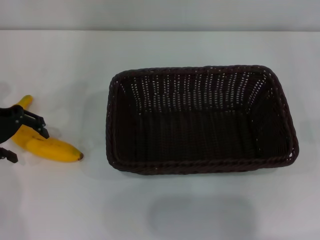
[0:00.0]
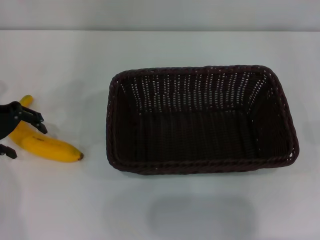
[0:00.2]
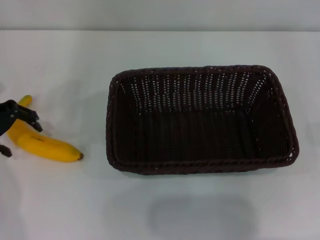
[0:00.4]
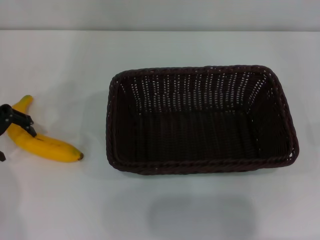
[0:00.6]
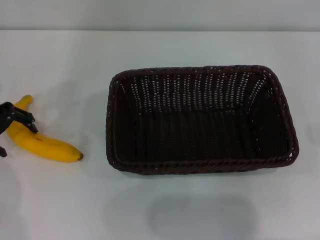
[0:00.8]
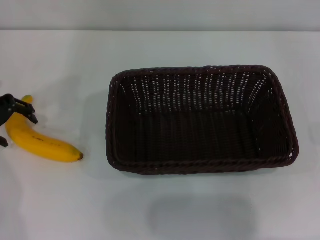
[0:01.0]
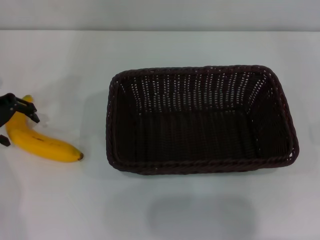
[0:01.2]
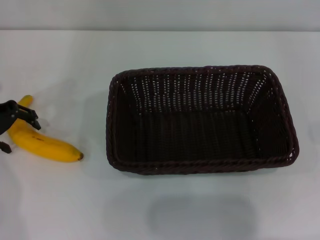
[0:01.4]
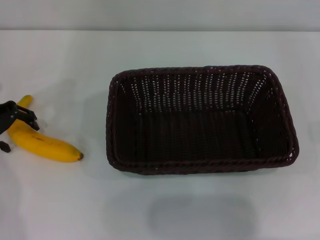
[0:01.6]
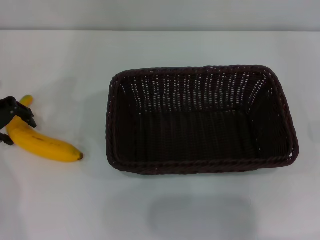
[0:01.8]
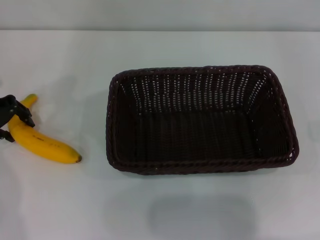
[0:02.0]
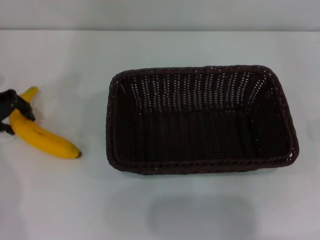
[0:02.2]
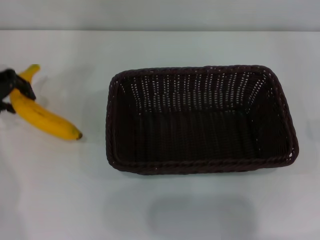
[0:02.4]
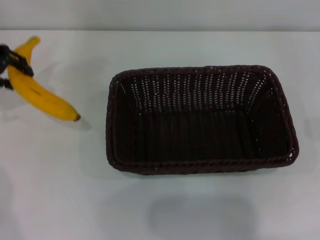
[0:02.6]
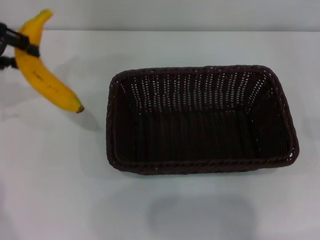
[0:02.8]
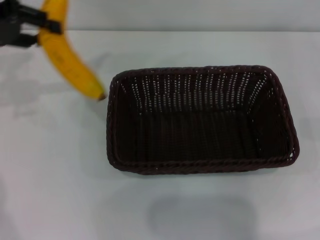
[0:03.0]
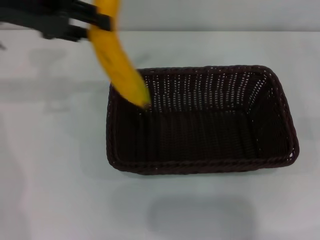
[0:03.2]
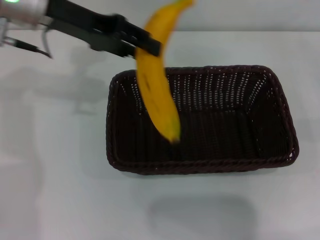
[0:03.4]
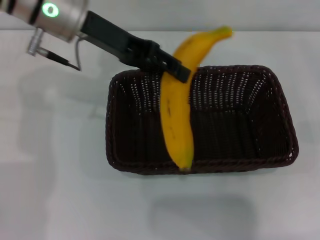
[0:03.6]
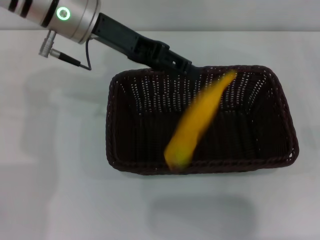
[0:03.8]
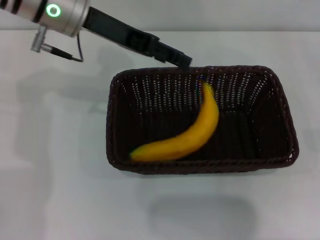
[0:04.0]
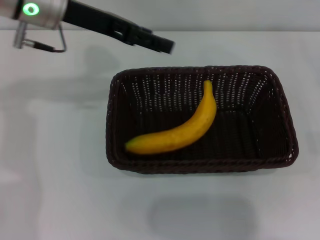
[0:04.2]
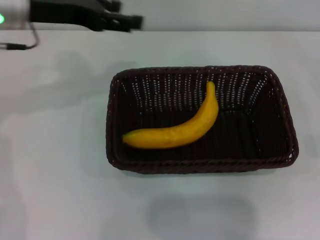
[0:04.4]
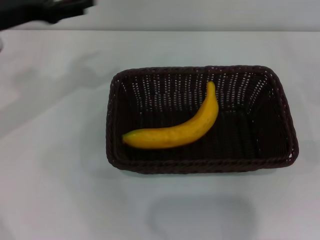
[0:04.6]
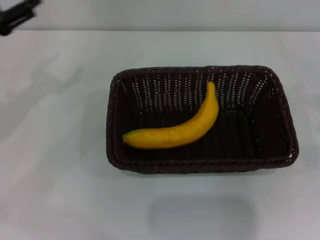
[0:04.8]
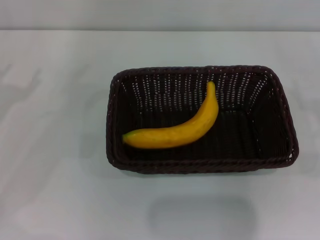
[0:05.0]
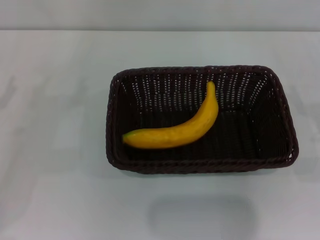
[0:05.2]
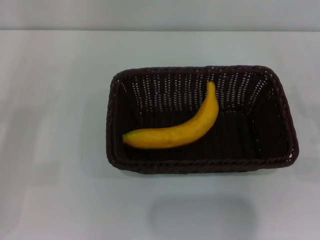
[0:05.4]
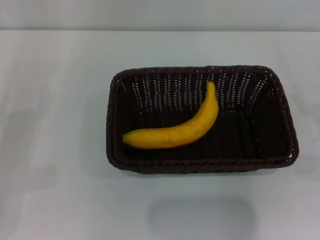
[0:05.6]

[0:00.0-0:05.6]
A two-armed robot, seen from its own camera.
Step, 0:00.0 to 0:02.4: Pick up the banana with the left gripper.
Step, 0:02.6 to 0:04.0: Place the banana into the dark basket with the left gripper.
0:00.0 to 0:01.4: There are only small adjustments of the grippers.
0:01.4 to 0:02.8: The left gripper moves upward, approximately 10 cm, and closes its fingers.
0:02.8 to 0:04.2: The left gripper shifts some 15 cm to the right, and opens up.
0:04.2 to 0:05.6: The left gripper travels to the left, downward and backward by roughly 30 cm. The right gripper heads to the left, covering about 5 cm.

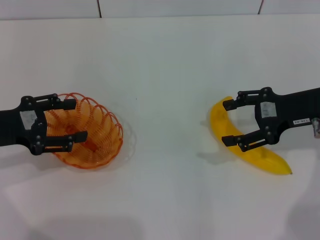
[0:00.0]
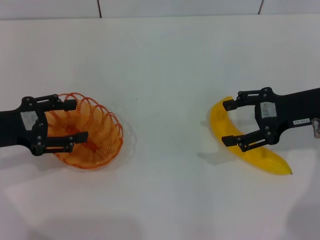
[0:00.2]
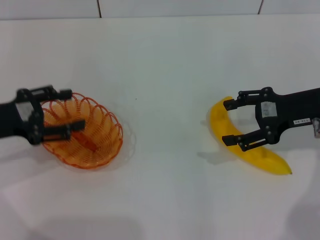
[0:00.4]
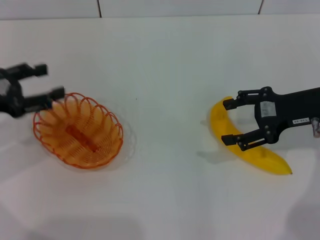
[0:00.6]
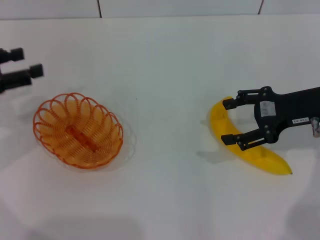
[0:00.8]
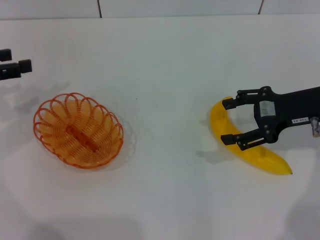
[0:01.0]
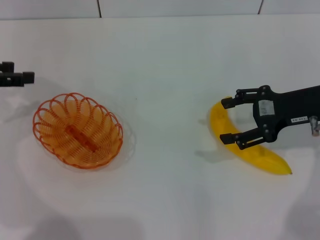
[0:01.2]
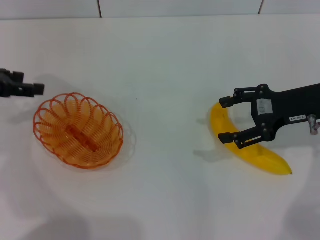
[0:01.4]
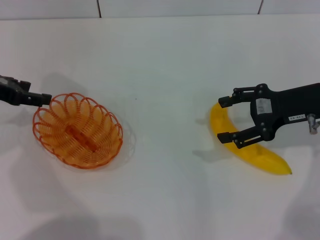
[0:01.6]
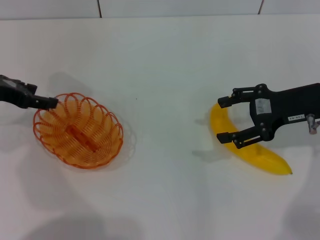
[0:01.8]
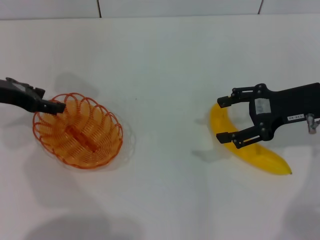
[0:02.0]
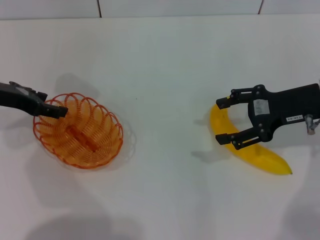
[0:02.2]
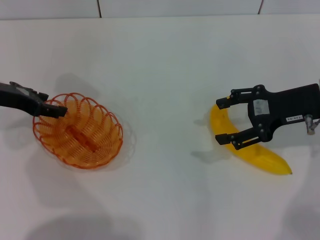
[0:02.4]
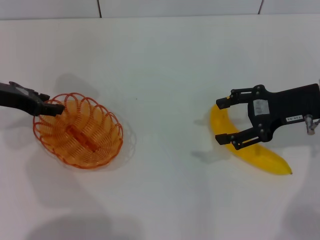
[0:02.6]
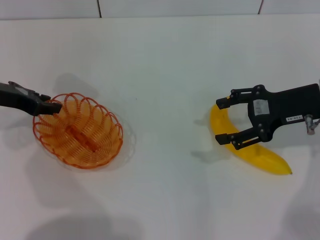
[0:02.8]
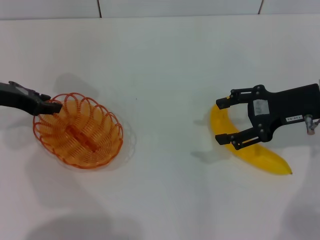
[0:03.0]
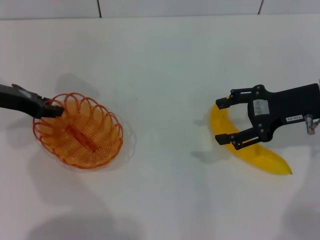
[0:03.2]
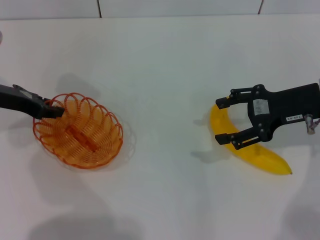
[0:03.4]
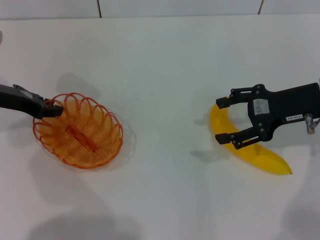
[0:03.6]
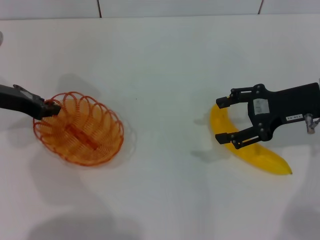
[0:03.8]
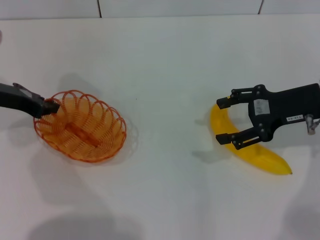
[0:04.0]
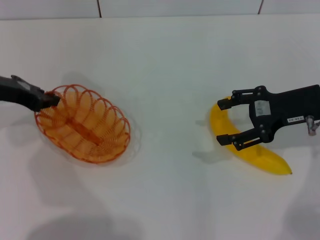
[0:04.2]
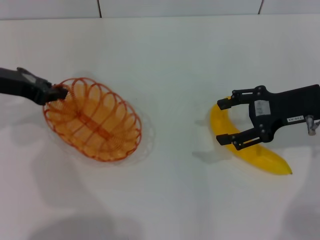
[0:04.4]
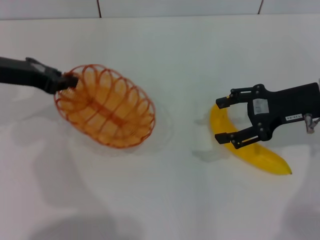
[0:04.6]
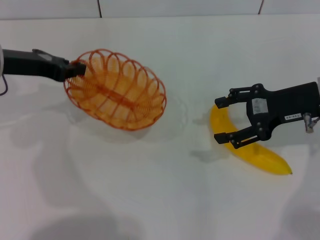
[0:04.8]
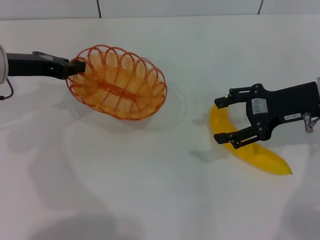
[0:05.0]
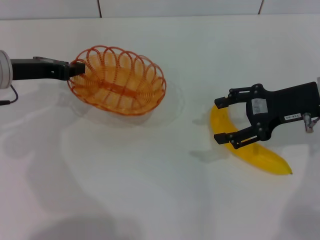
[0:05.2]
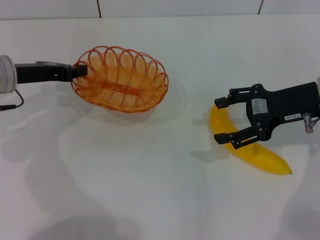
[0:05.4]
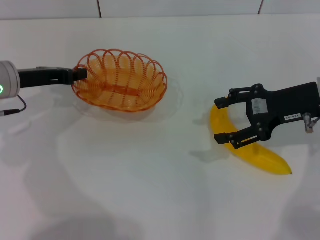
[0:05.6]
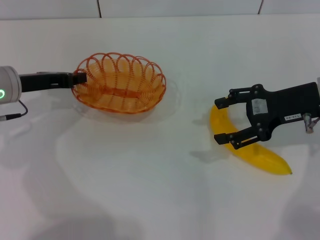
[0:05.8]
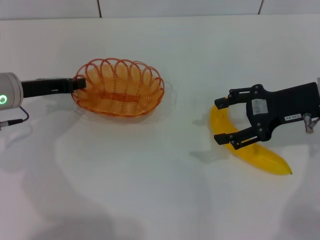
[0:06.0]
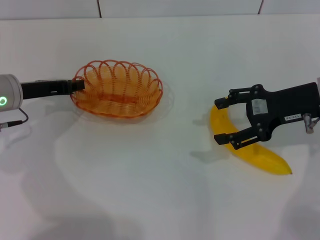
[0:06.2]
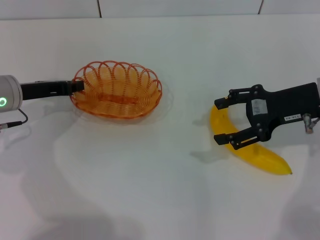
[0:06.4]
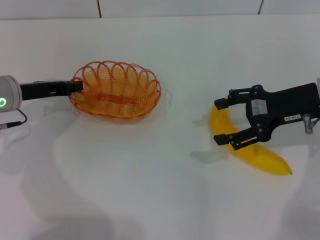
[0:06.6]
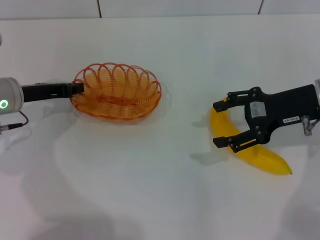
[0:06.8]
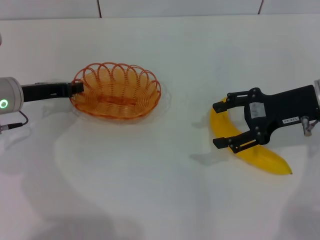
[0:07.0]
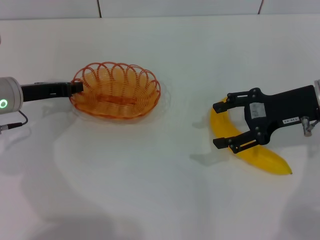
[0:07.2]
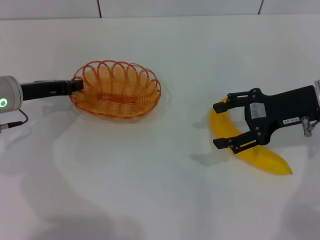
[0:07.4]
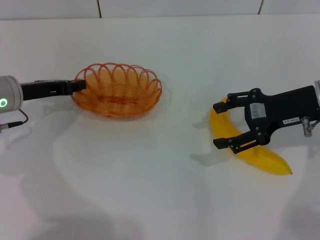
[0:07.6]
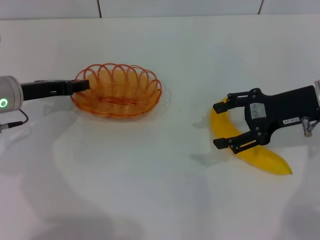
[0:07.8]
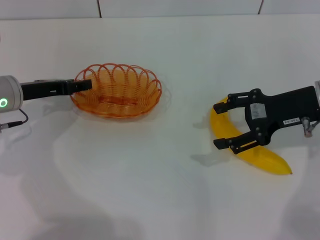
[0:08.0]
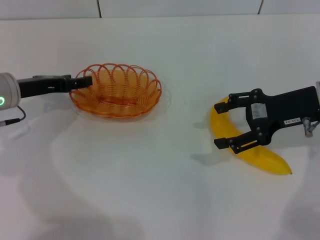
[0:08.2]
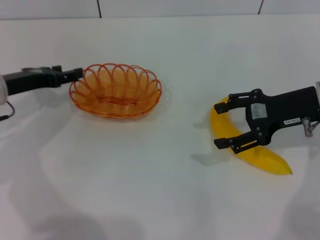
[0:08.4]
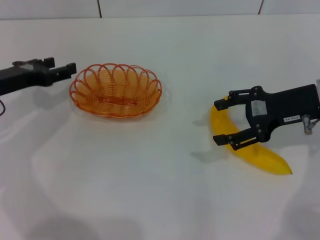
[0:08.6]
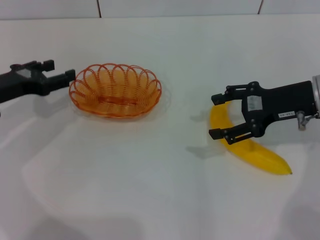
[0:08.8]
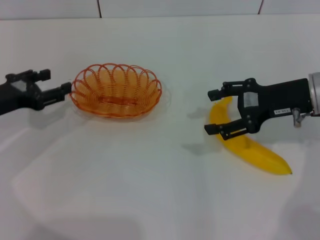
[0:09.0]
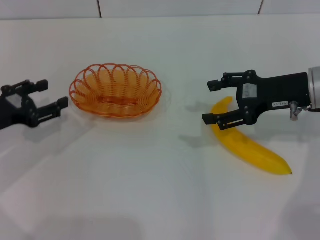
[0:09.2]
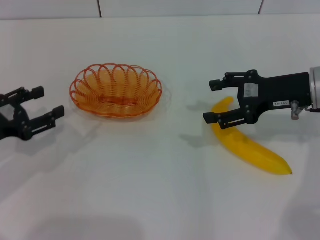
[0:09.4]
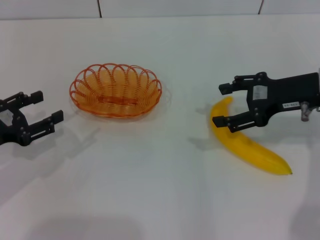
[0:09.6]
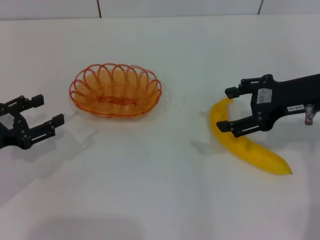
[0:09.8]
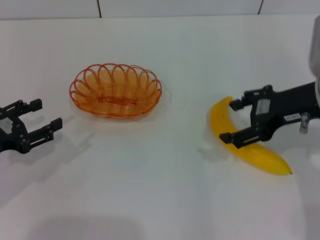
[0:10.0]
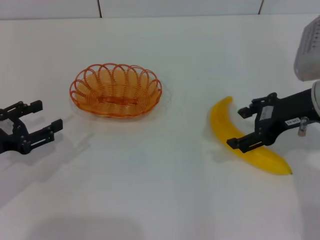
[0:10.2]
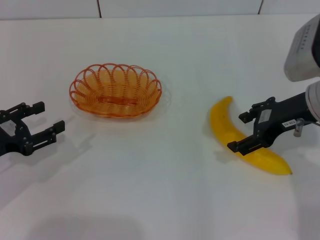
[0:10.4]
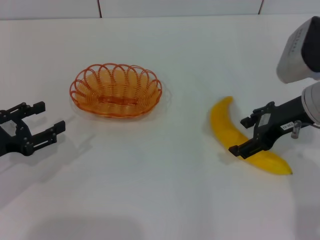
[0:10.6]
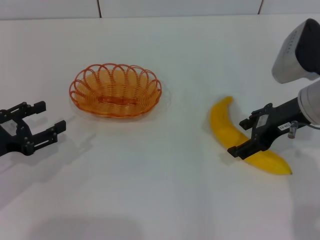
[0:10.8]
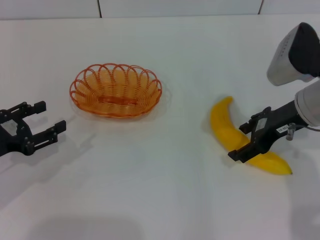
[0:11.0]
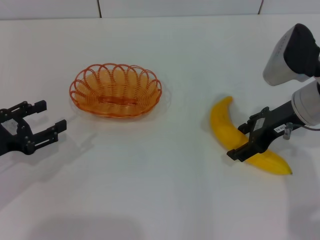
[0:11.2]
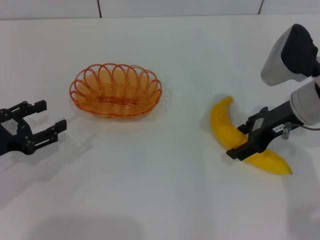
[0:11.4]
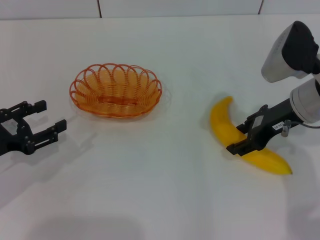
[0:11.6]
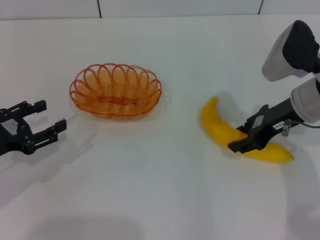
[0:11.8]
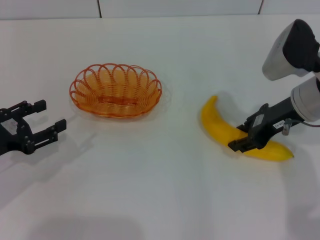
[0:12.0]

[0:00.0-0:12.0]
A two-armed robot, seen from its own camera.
Step, 0:00.0 to 0:04.4: Pick up the basket with the left gripper.
Step, 0:04.8 to 0:08.4: Place the basket in the center of view with the left gripper.
0:00.0 to 0:01.6: The left gripper goes about 10 cm forward.
0:01.6 to 0:03.0: The left gripper closes up.
0:03.0 to 0:04.4: The left gripper closes its fingers.
0:04.4 to 0:06.0: The left gripper shifts about 5 cm downward.
0:06.0 to 0:07.6: Both grippers stay about where they are.
0:07.6 to 0:09.0: The left gripper changes place by about 5 cm, and opens up.
0:09.0 to 0:10.4: The left gripper moves backward, about 5 cm.
0:10.4 to 0:12.0: The right gripper closes its fingers.

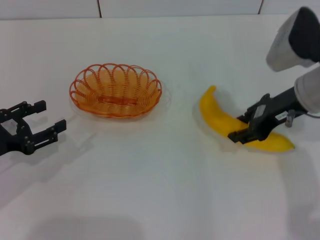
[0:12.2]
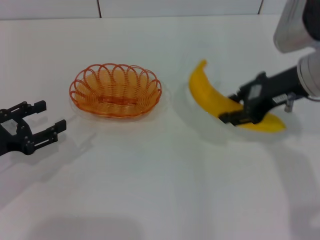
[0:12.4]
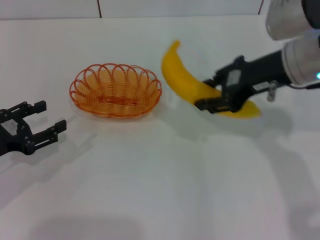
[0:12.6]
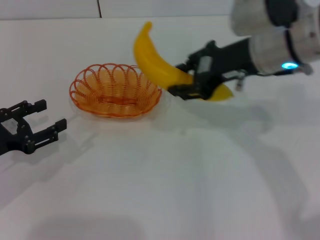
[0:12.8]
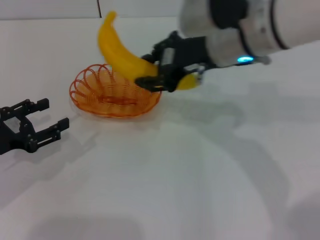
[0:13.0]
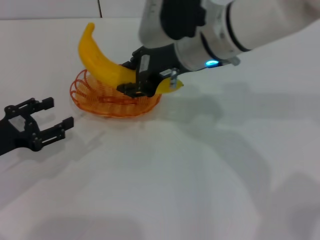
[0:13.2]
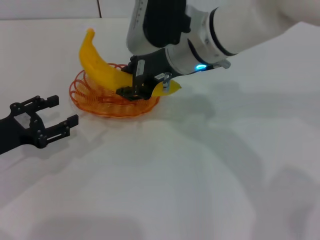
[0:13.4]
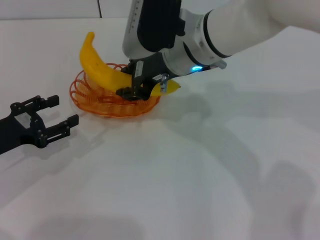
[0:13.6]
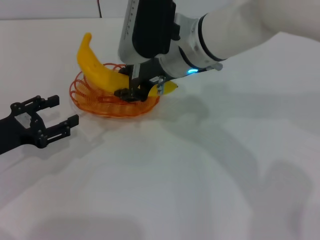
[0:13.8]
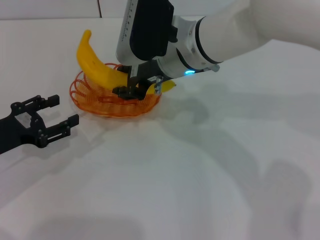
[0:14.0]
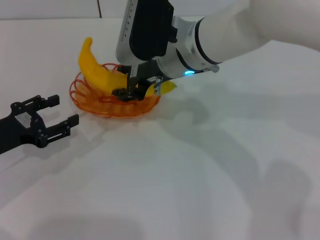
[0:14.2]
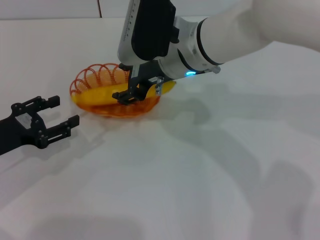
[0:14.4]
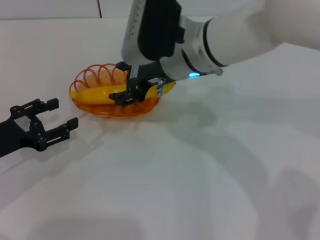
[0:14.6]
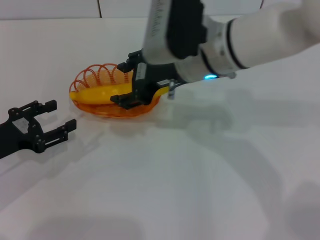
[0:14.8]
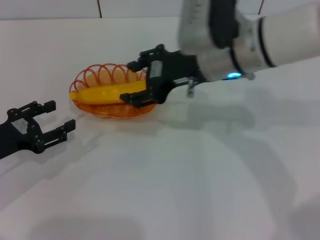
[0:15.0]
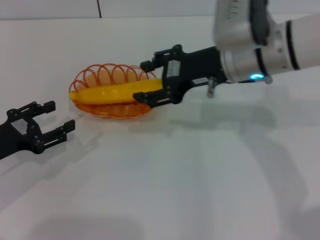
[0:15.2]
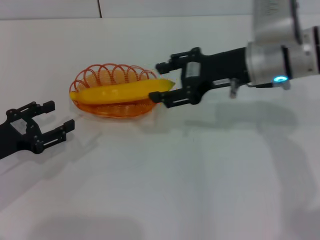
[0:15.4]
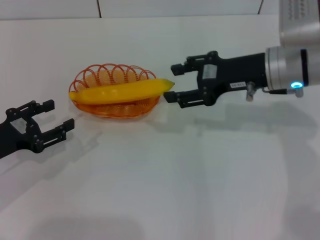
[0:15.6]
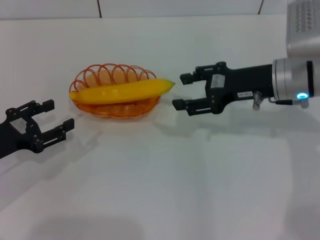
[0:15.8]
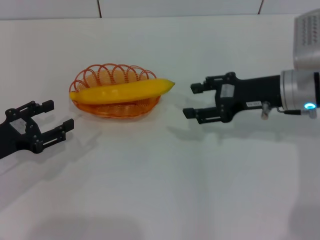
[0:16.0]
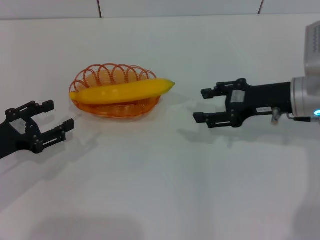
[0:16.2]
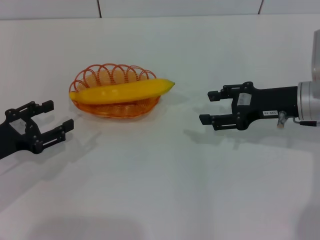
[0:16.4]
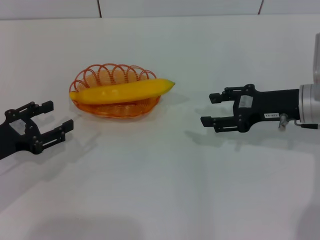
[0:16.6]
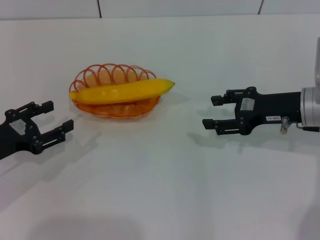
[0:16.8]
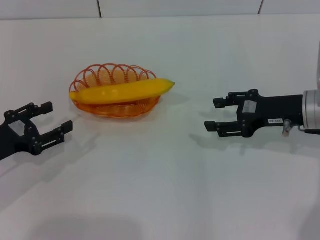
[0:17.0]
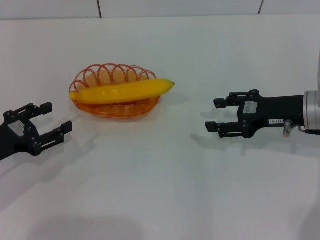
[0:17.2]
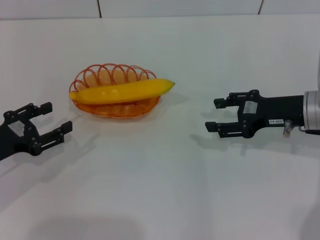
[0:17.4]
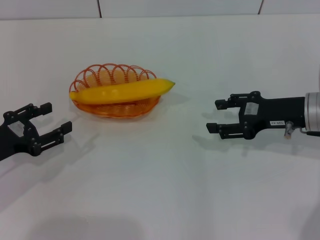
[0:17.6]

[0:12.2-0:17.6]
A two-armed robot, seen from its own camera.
Step, 0:12.4 to 0:15.4: Place the banana into the basket with the right gripper.
0:12.2 to 0:13.6: The right gripper is displaced to the left by roughly 15 cm.
0:13.6 to 0:15.0: The right gripper ends up some 5 cm from where it was, and opens.
0:15.0 to 0:16.2: The right gripper travels to the right and downward by approximately 15 cm.
0:16.2 to 0:17.6: The grippers stay close to where they were, moving slightly.
